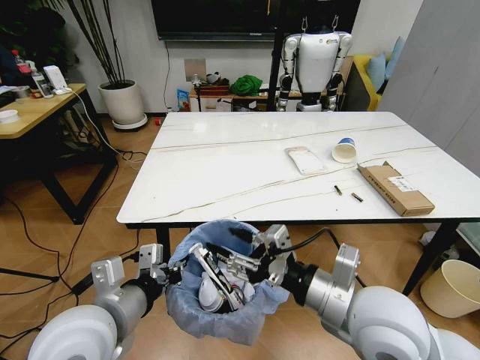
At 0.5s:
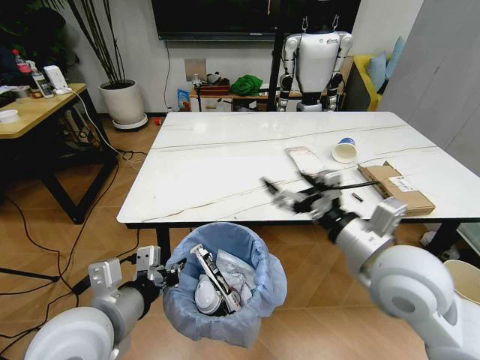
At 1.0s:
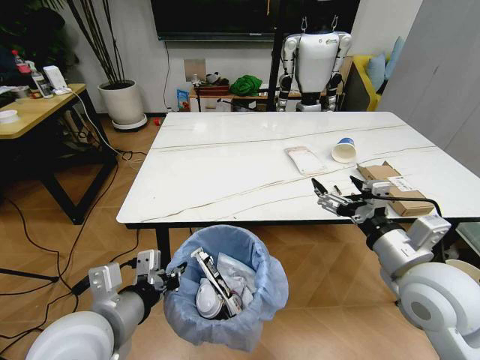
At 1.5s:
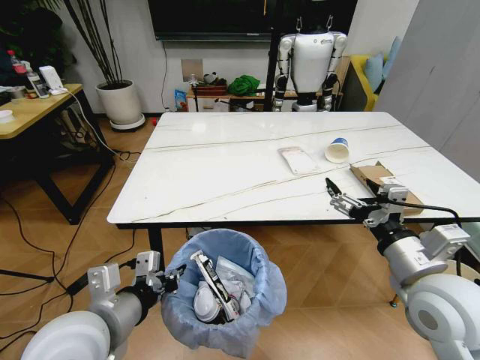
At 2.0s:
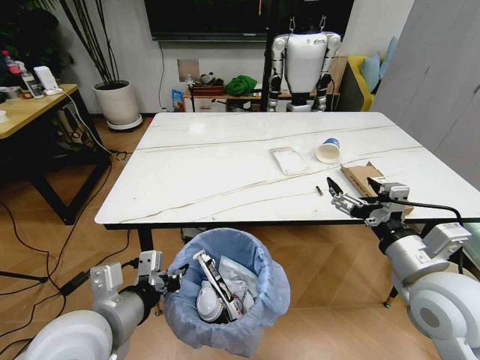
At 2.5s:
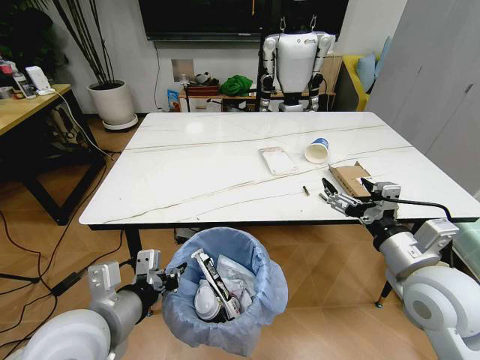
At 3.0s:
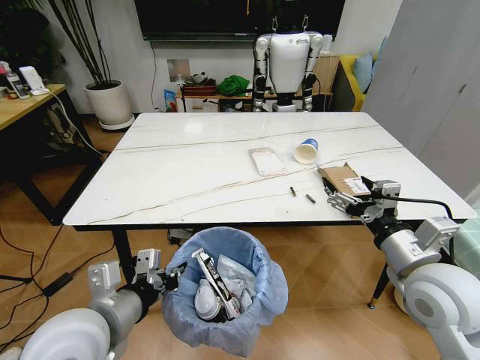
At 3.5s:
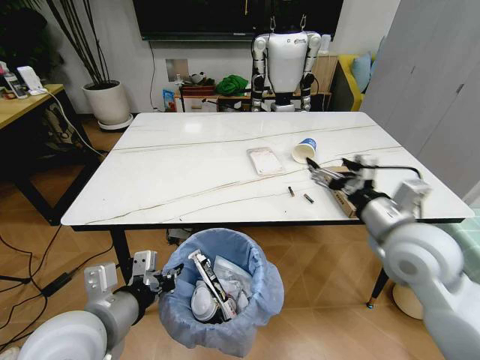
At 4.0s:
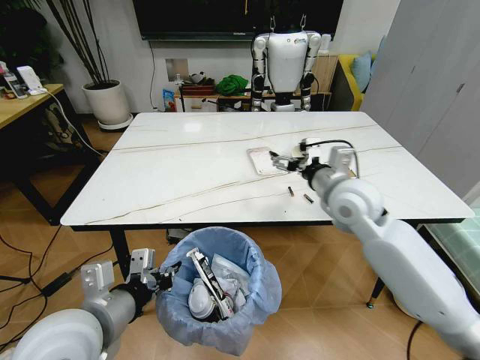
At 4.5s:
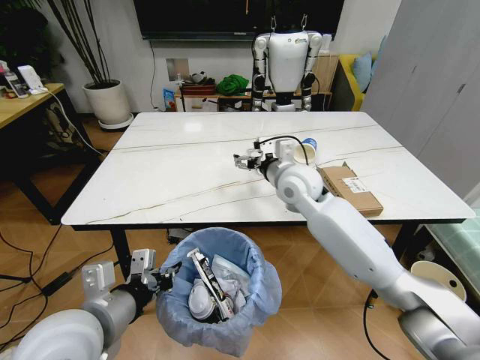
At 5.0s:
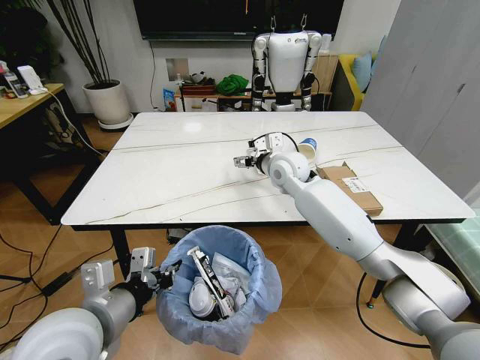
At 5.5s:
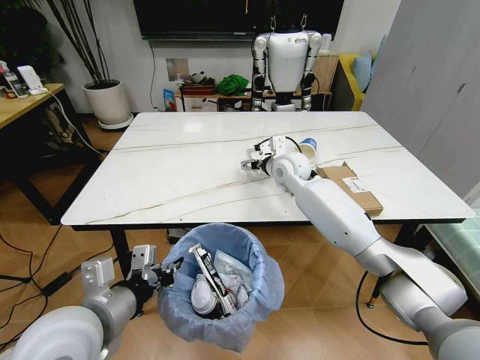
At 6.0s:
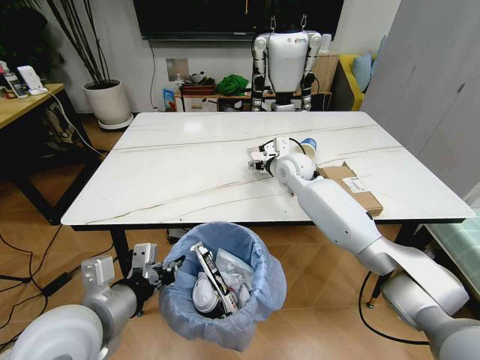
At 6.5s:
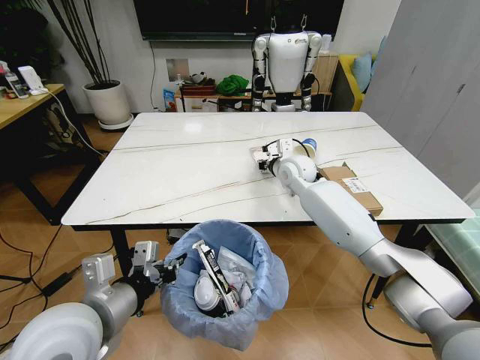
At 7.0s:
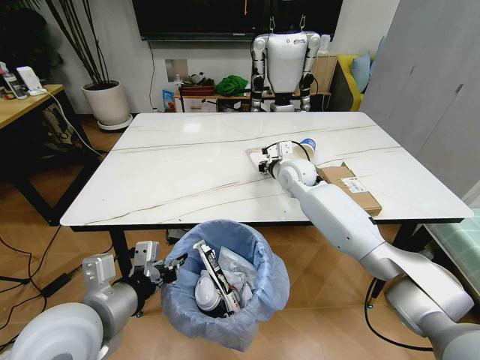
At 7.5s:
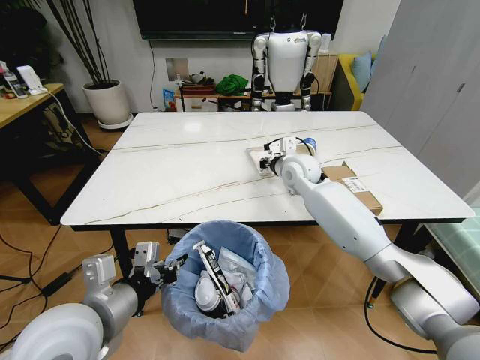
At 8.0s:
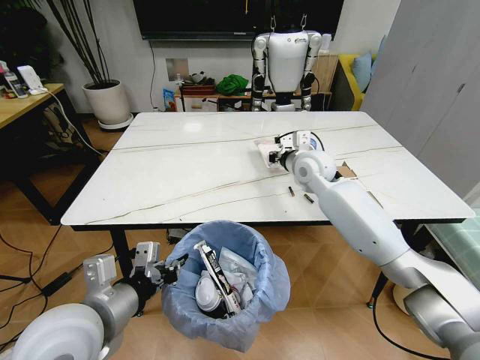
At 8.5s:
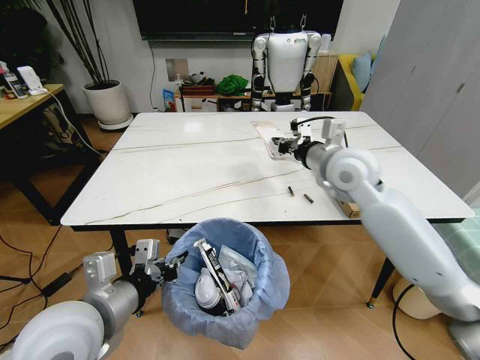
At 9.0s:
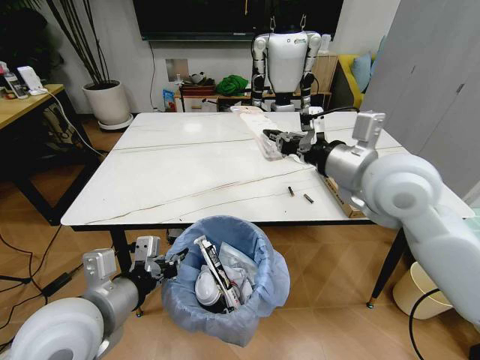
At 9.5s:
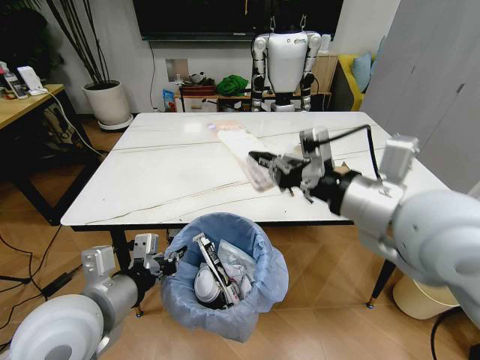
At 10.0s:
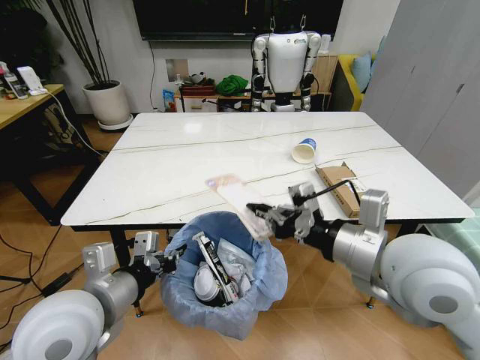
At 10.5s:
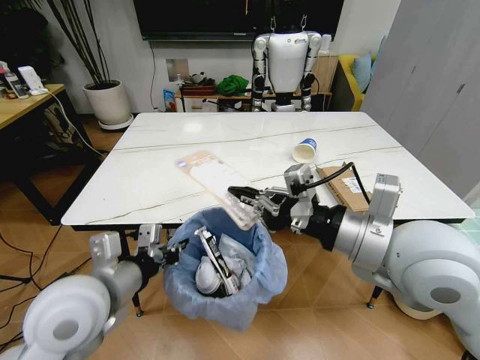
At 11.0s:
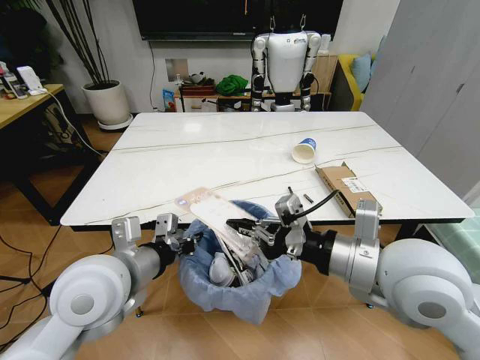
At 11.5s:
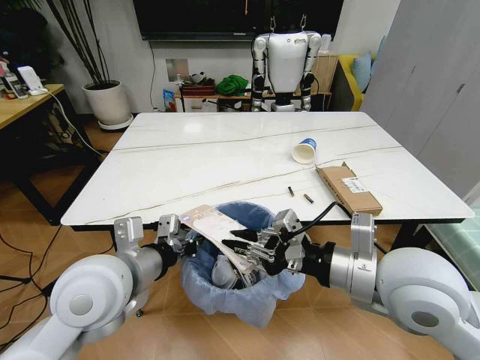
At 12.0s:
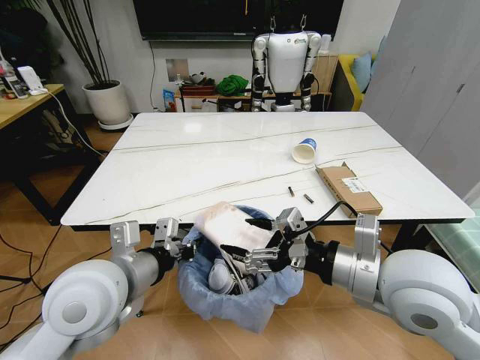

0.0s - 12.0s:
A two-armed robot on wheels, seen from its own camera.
Task of the whole recording: Pick up the trash bin and place the trash from the table into it.
0.0s - 2.0s: The right gripper travels to the right by approximately 10 cm, and opens up.
2.0s - 4.0s: The right gripper moves forward, about 20 cm.
4.0s - 6.0s: The right gripper goes roughly 20 cm forward and to the left.
6.0s - 8.0s: The right gripper changes place by approximately 5 cm, and closes its fingers.
8.0s - 10.0s: The right gripper is displaced backward by approximately 30 cm.
10.0s - 12.0s: The right gripper opens.

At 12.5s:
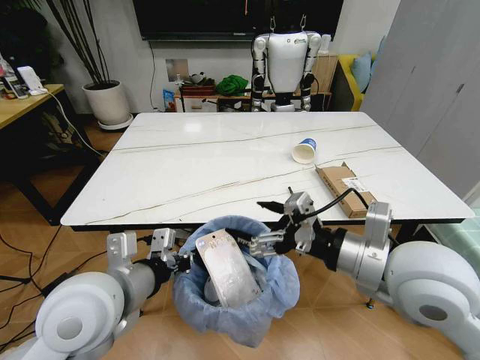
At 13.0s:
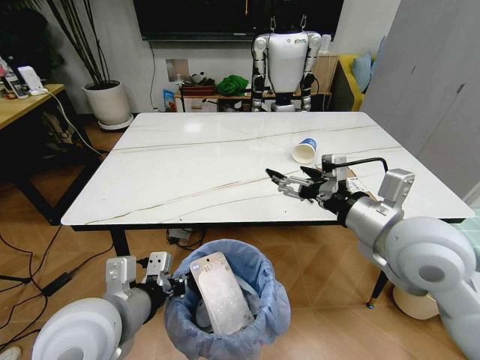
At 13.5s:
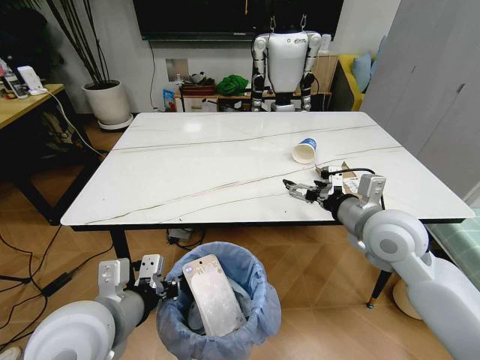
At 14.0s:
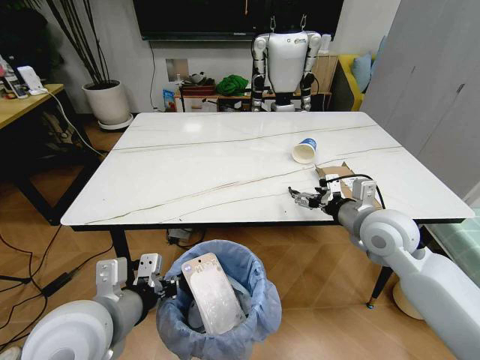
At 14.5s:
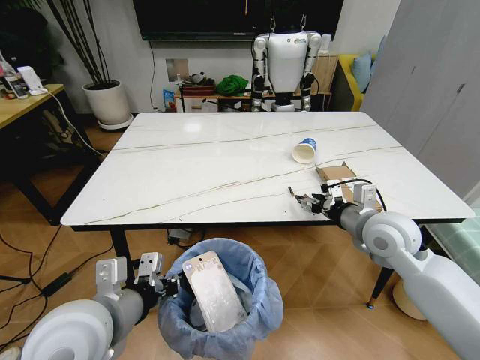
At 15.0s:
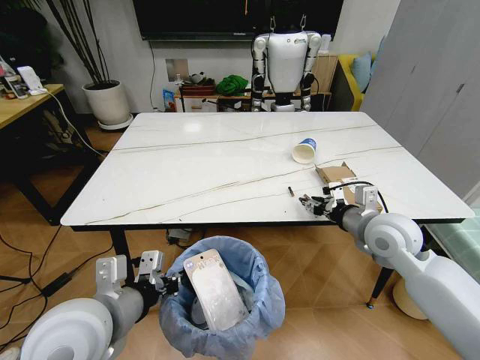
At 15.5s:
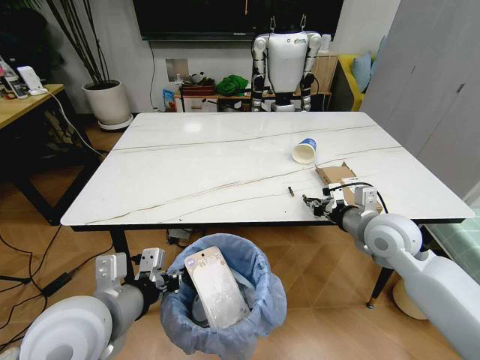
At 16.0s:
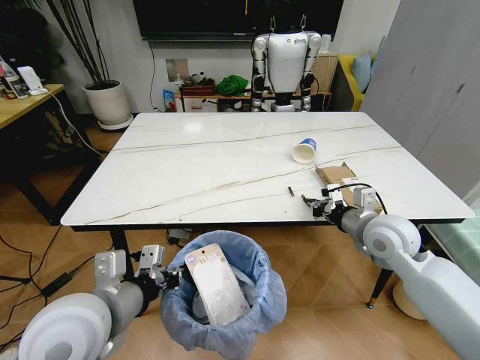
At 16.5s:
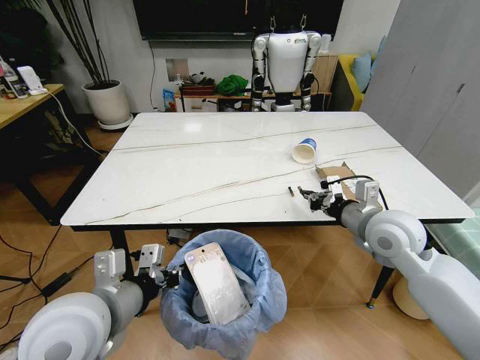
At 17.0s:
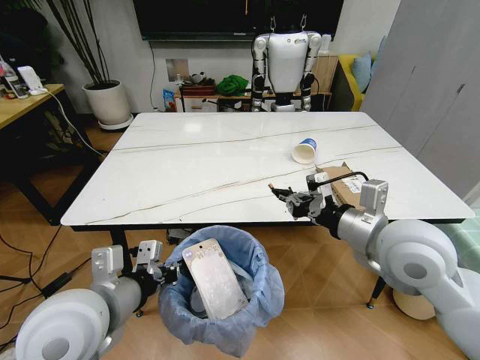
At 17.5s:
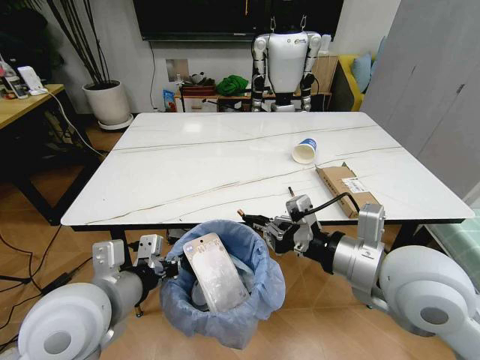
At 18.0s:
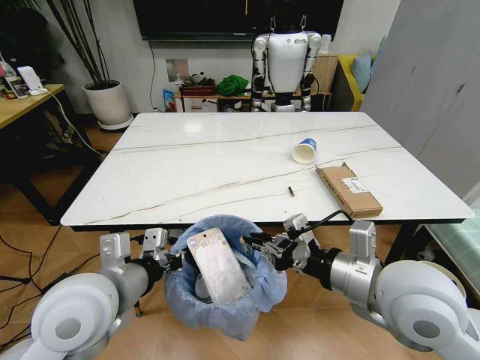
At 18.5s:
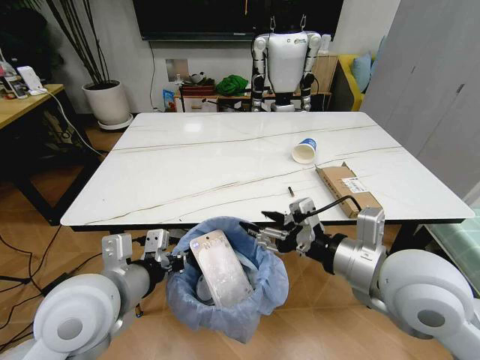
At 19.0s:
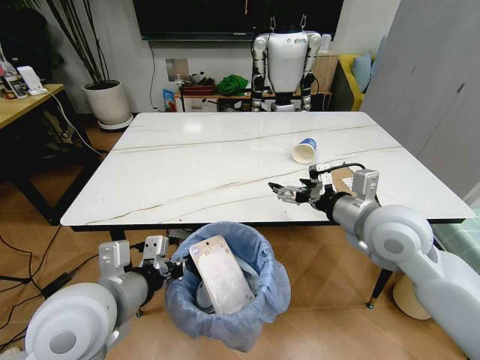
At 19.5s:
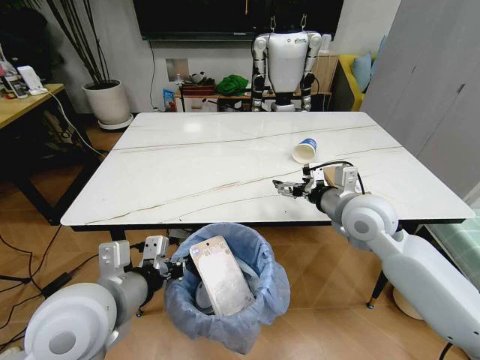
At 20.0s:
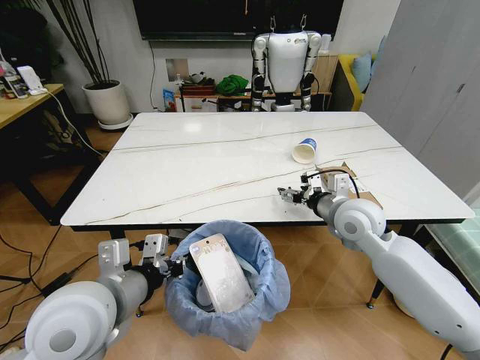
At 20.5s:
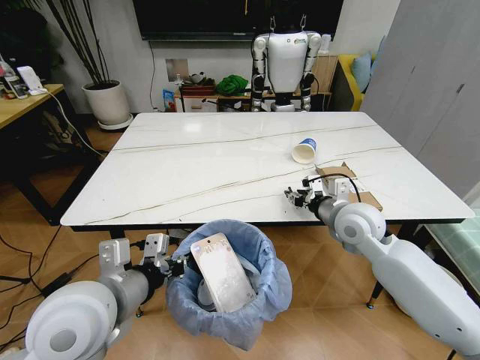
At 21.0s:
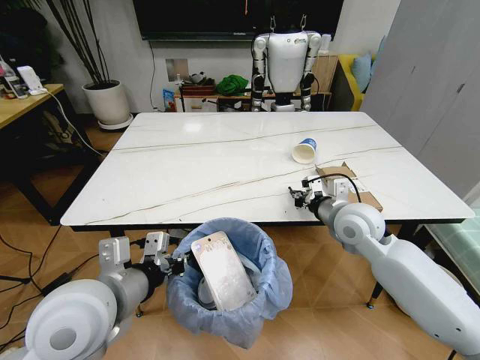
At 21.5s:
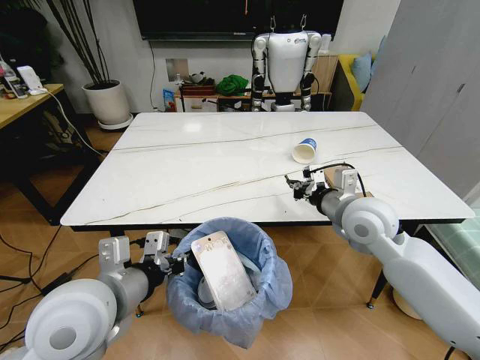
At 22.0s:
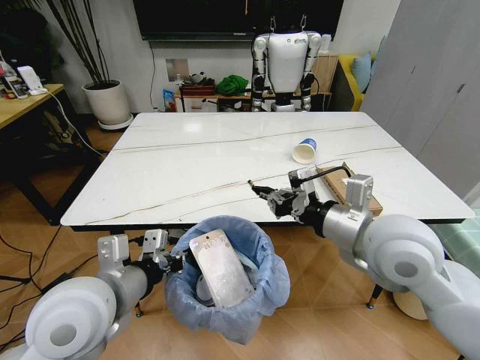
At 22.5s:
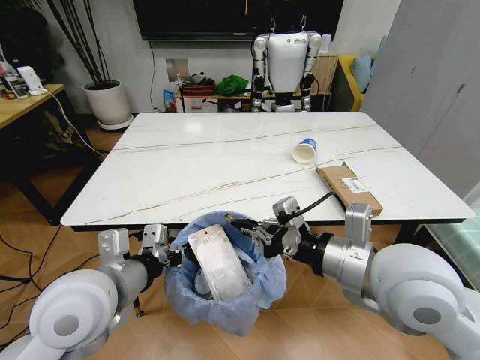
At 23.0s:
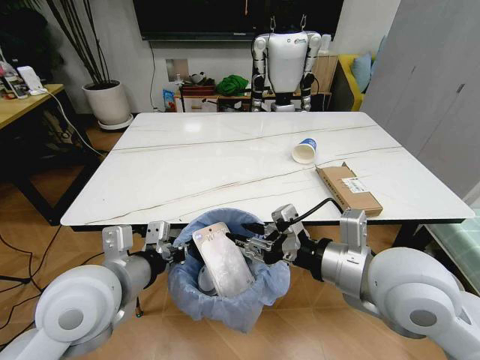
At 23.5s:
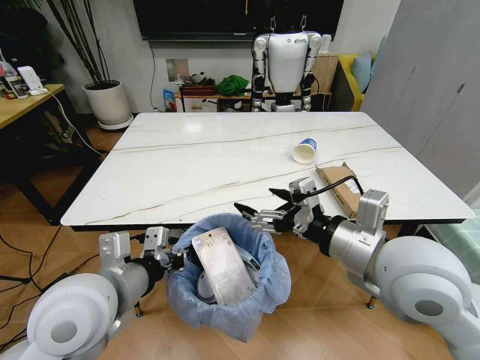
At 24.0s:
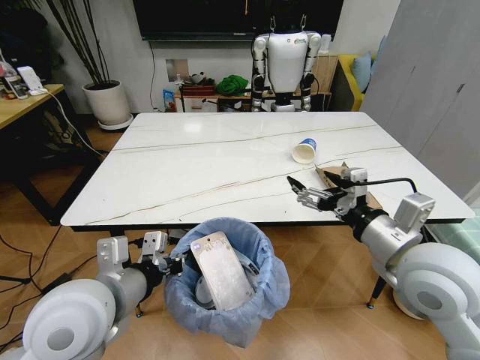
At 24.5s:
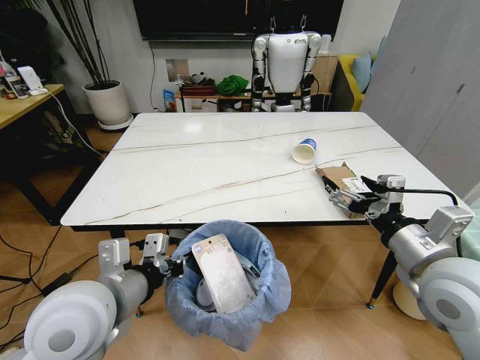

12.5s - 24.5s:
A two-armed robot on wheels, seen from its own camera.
Task of the whole recording: Pick up the trash bin and place the trash from the table into it.
12.5s - 14.5s: The right gripper heads forward, downward and to the right, covering about 15 cm, and closes.
14.5s - 16.5s: The right gripper closes up.
16.5s - 18.5s: The right gripper goes about 15 cm backward, to the left and upward, and opens its fingers.
18.5s - 20.5s: The right gripper shifts roughly 20 cm forward and downward, and opens, then closes once more.
20.5s - 22.5s: The right gripper moves backward and upward, some 20 cm, and closes up.
22.5s - 24.5s: The right gripper travels to the right by approximately 10 cm, and opens.

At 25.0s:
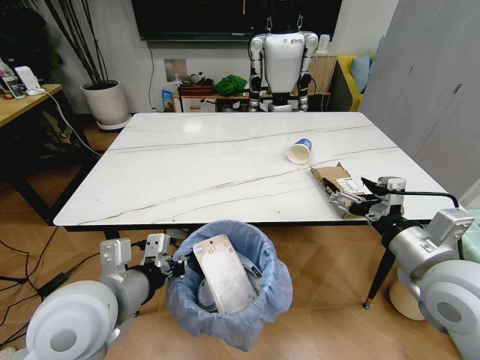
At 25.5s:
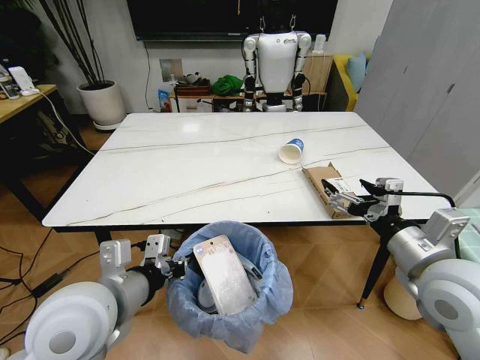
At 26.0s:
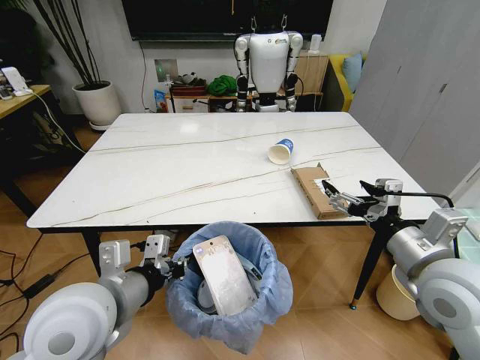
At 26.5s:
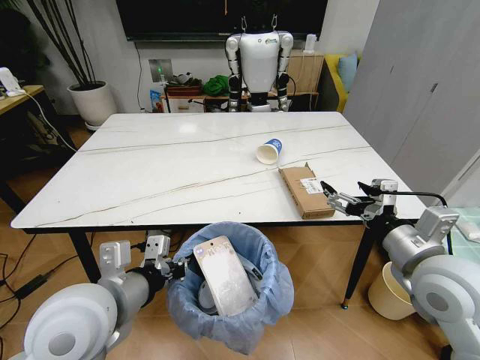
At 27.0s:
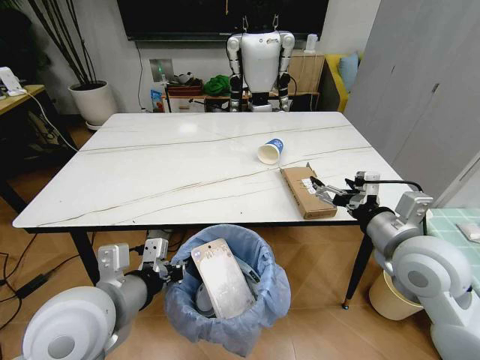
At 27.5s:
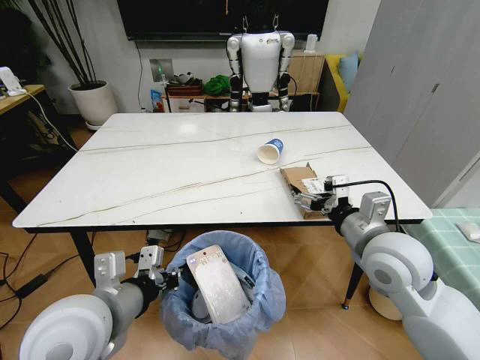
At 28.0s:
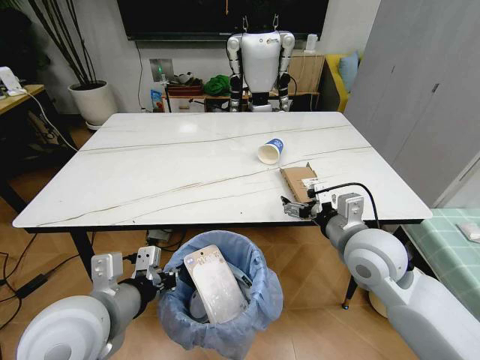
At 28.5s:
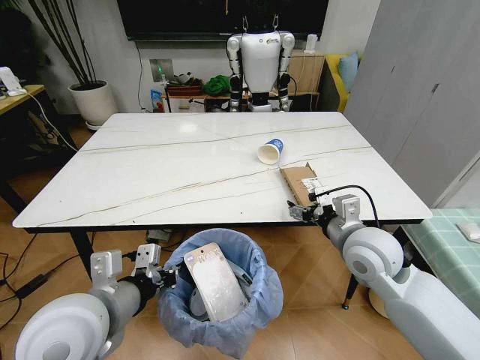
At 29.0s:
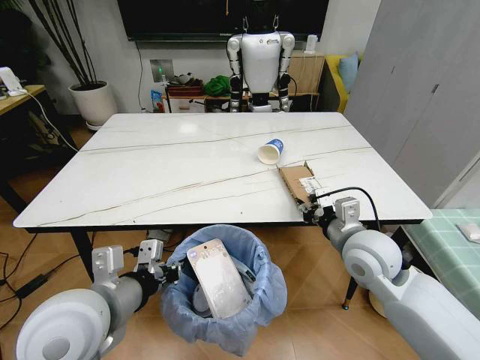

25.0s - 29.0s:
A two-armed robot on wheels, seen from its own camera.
Task of the whole recording: Pick up the trash bin and place the trash from the table into it.
25.0s - 27.0s: The right gripper moves forward, roughly 5 cm.
27.0s - 29.0s: The right gripper travels downward by approximately 5 cm, and closes.
